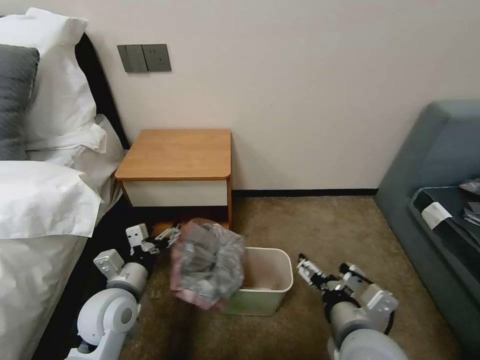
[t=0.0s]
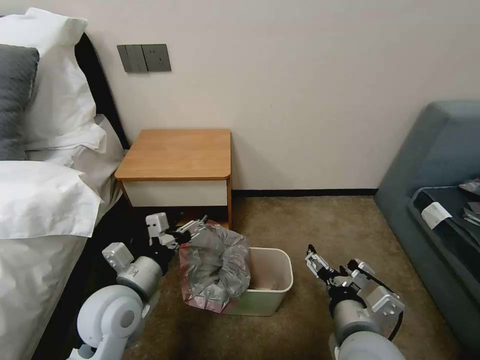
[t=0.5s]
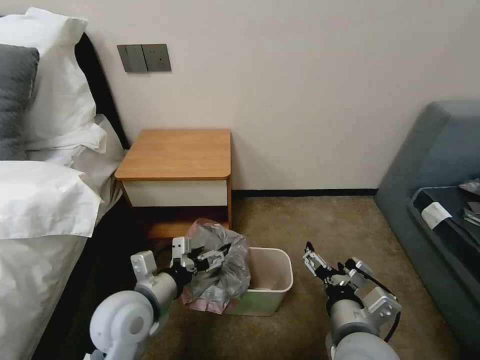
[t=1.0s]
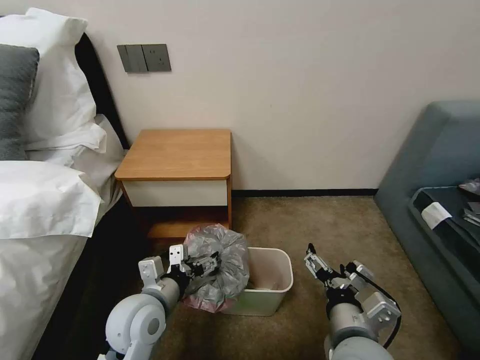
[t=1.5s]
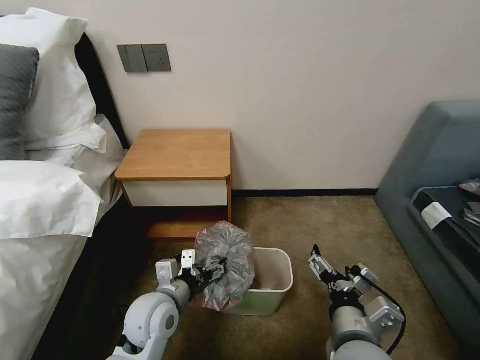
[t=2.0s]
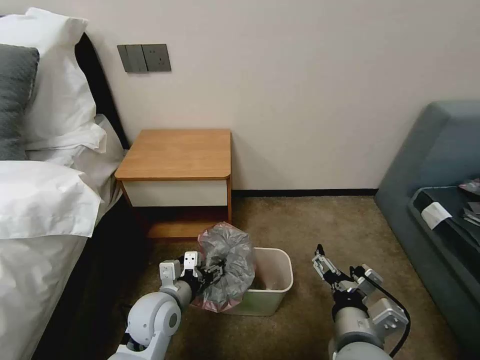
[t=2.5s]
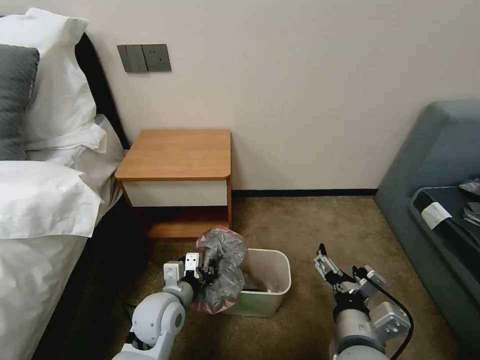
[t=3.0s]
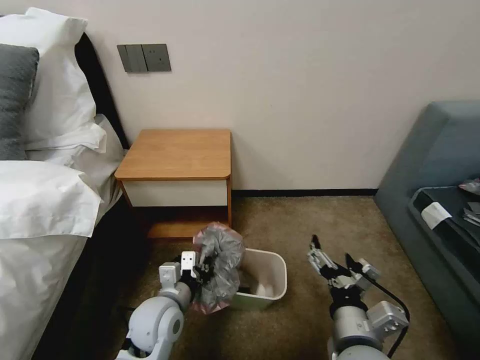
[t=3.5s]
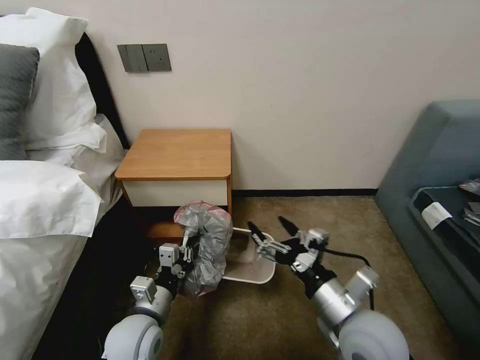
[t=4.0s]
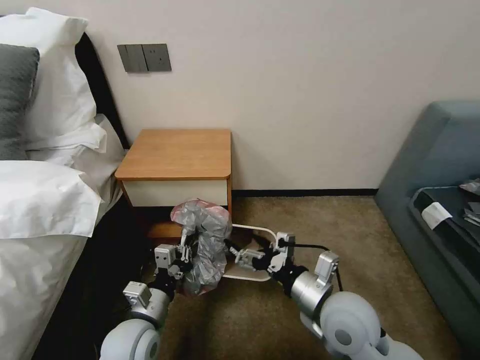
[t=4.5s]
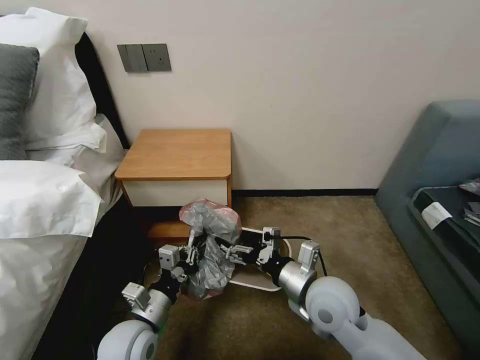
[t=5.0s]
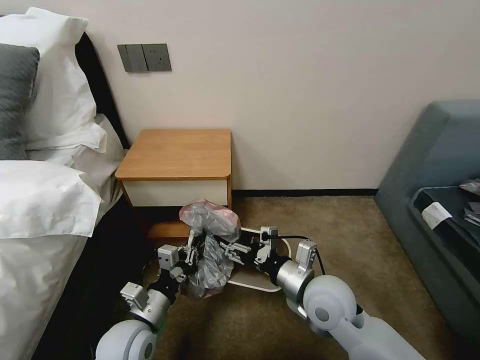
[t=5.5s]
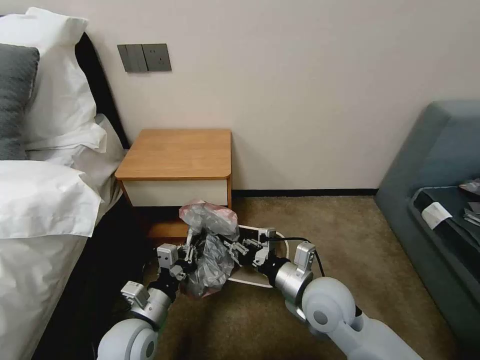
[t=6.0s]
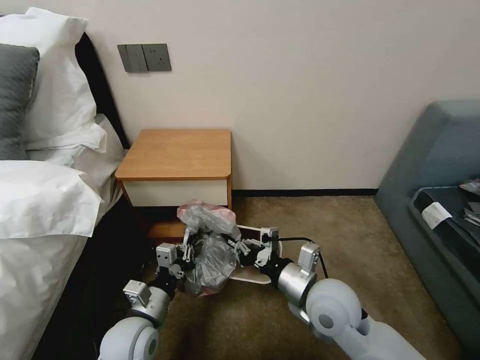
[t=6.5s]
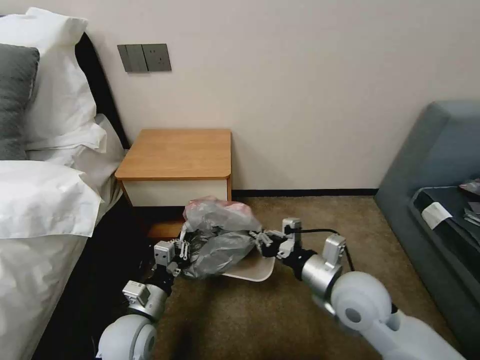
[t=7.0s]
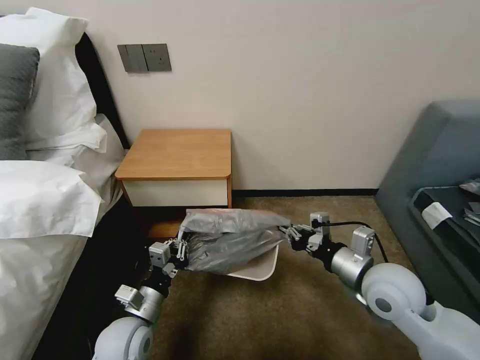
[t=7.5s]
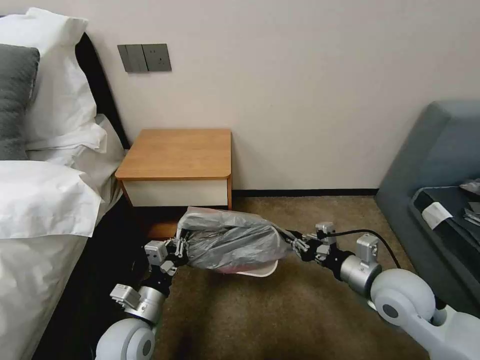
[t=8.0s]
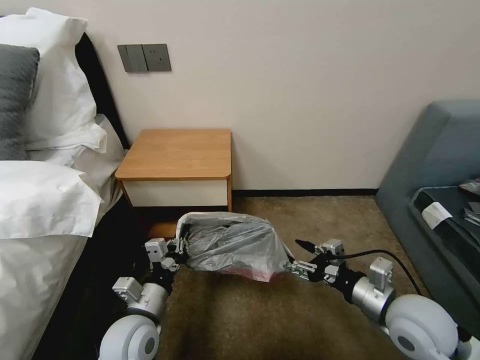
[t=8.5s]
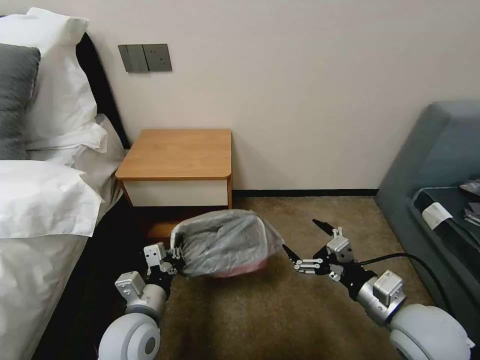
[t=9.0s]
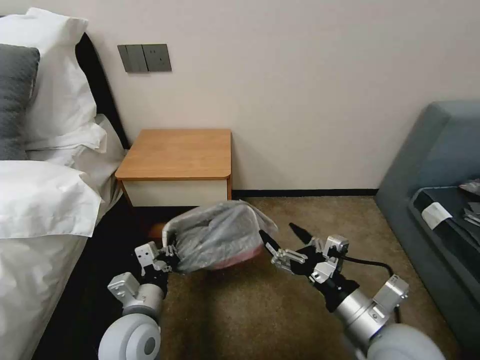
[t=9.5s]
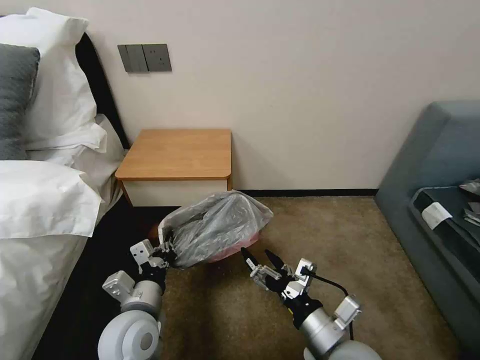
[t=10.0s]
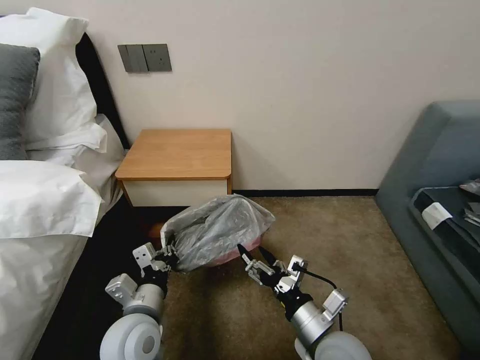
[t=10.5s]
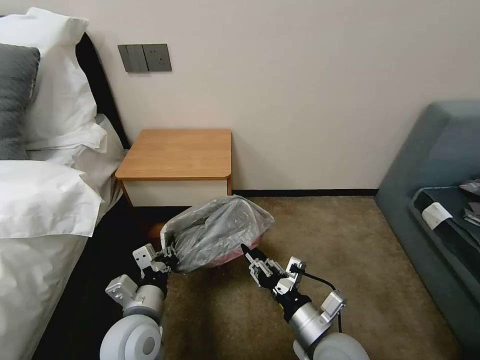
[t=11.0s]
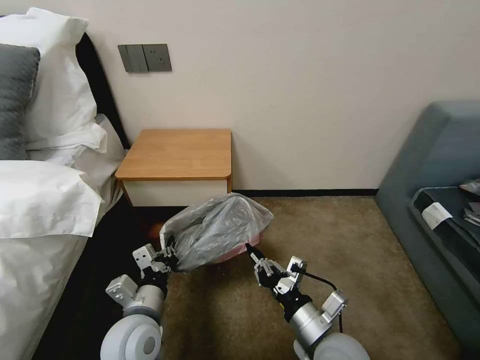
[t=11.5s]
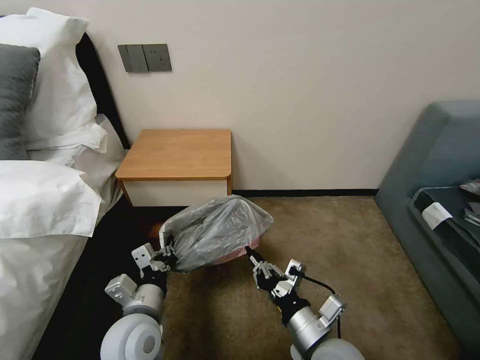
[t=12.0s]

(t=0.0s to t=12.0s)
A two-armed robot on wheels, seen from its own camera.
Task of the whole recording: Pick up the garbage bag from the table and place it over the trash can.
t=0.0s - t=2.0s: The left gripper goes about 5 cm to the right.
t=2.0s - t=4.0s: The left gripper changes place by some 5 cm, and closes its fingers.
t=4.0s - t=6.0s: The right gripper shifts some 5 cm forward, and closes up.
t=6.0s - t=8.0s: The right gripper goes about 15 cm to the right.
t=8.0s - t=10.0s: The right gripper shifts some 15 cm to the left and backward, and opens, while the left gripper shifts by about 5 cm.
t=10.0s - t=12.0s: The right gripper closes.

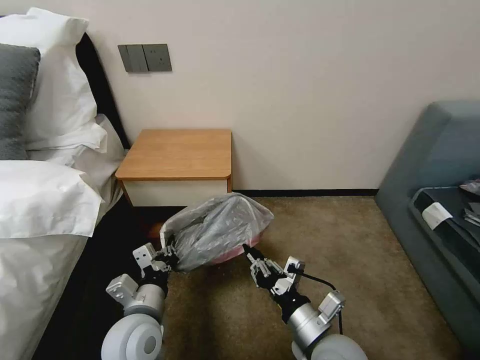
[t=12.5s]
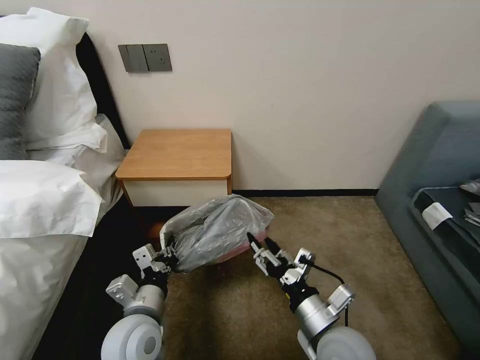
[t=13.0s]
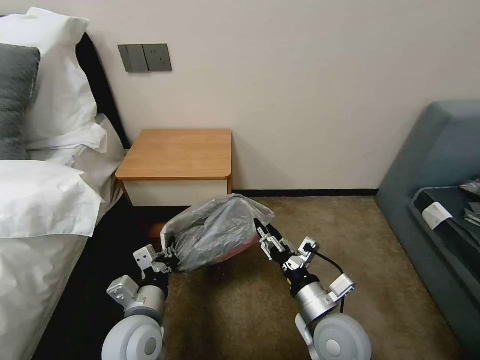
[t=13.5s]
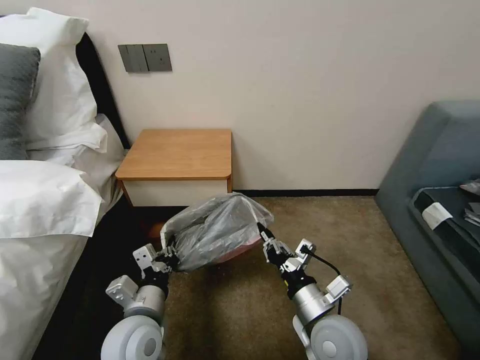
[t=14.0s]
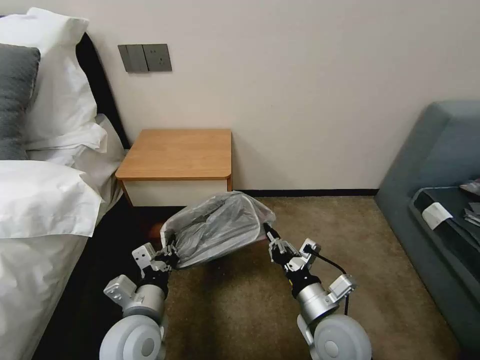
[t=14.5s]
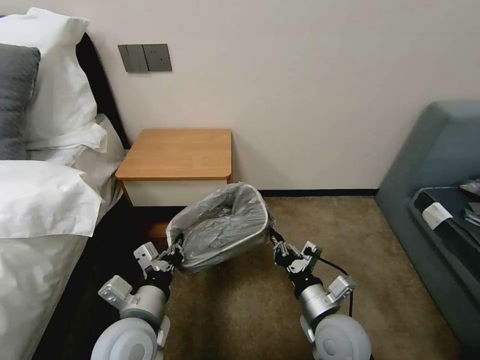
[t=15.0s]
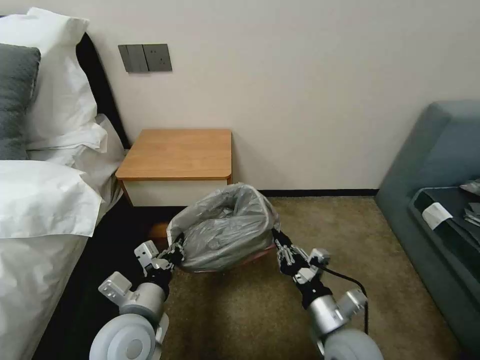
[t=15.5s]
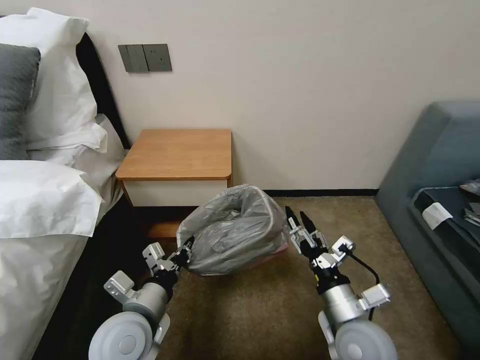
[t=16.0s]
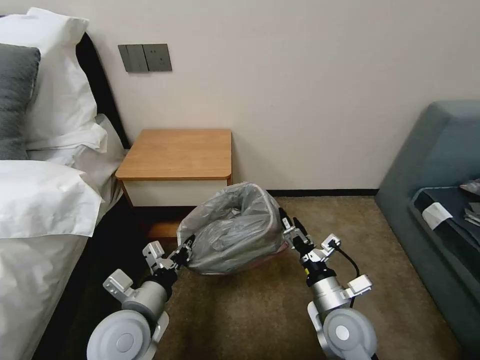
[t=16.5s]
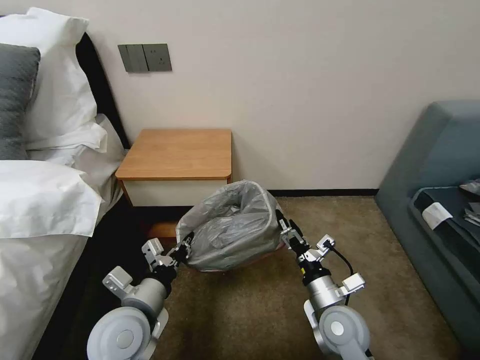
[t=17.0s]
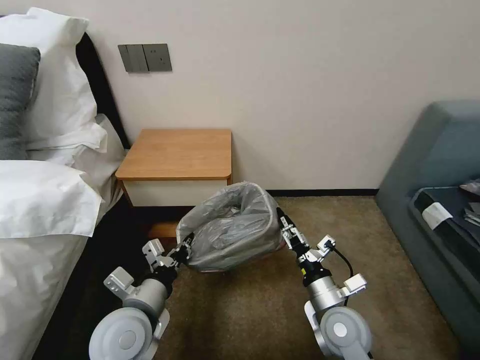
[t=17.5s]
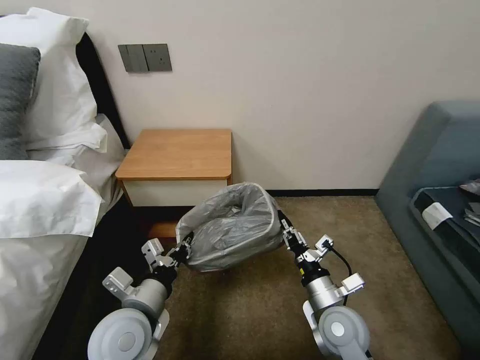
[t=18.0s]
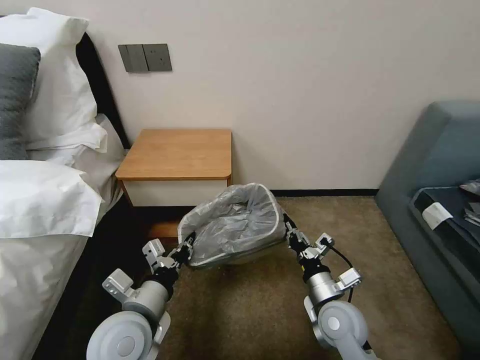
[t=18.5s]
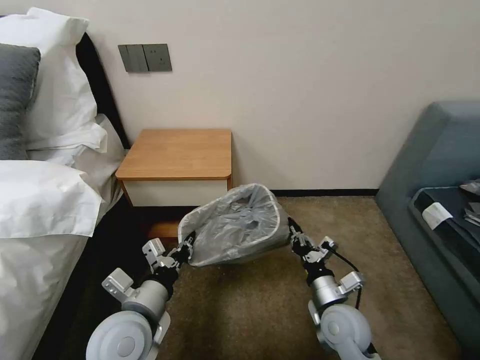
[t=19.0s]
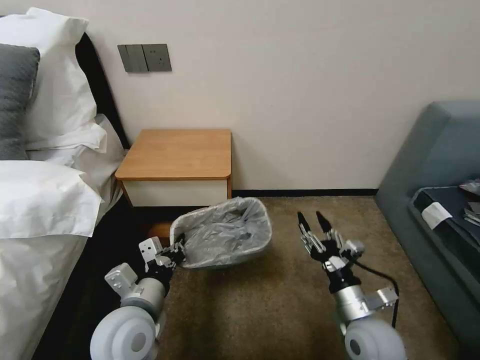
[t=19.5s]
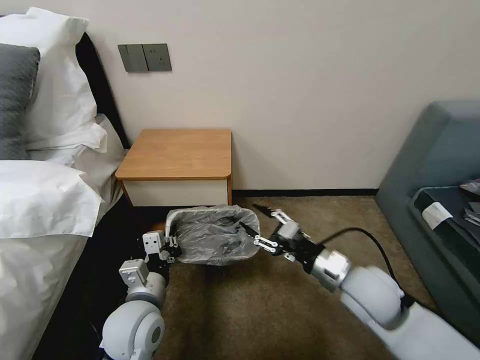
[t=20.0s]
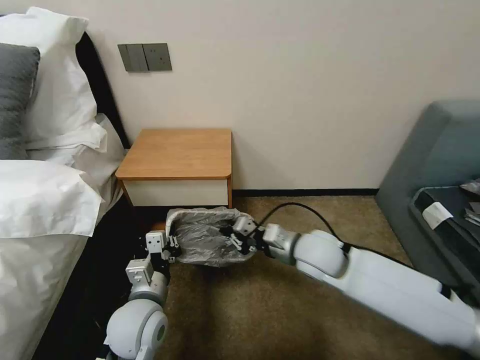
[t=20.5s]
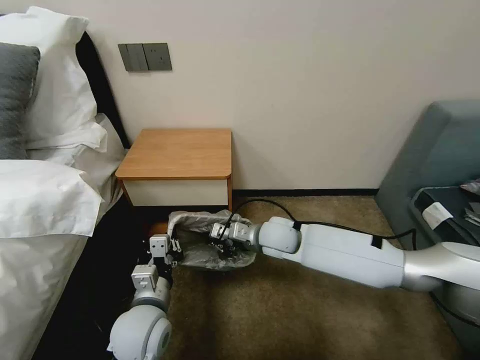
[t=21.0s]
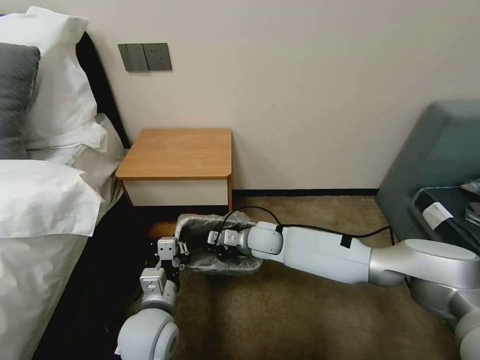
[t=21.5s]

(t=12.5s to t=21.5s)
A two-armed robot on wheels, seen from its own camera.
Task of the whole recording: Pick up the garbage bag from the table and place it over the trash can.
t=12.5s - t=14.5s: The right gripper opens, then closes once more.
t=14.5s - t=17.0s: The right gripper ends up roughly 5 cm from where it was, and opens up.
t=17.0s - t=19.5s: The right gripper moves roughly 5 cm, and closes its fingers.
t=19.5s - t=21.5s: The left gripper changes place by about 5 cm. Meanwhile the right gripper travels forward and to the left by some 30 cm, and closes its fingers.

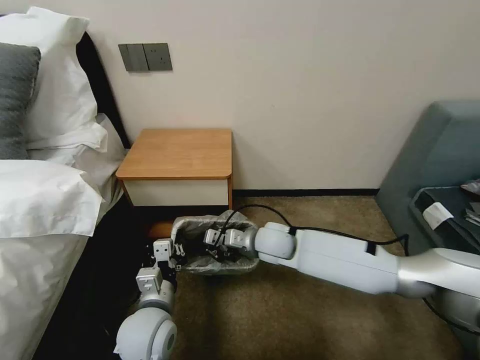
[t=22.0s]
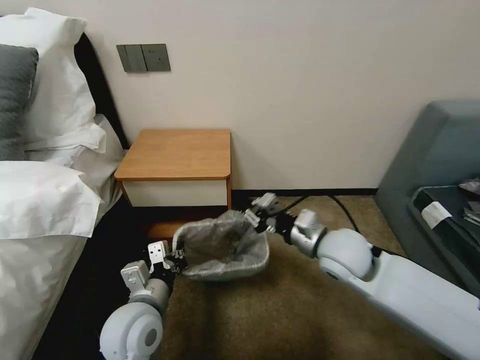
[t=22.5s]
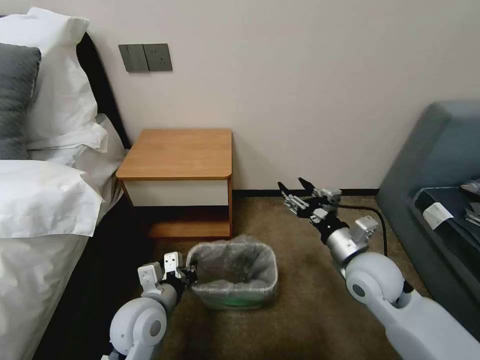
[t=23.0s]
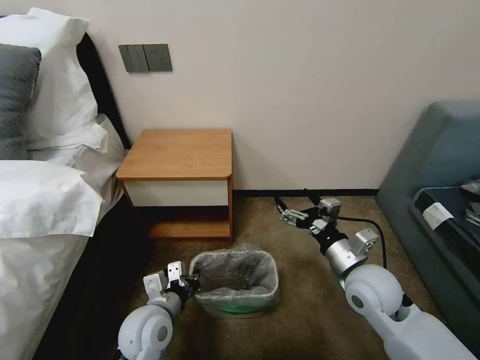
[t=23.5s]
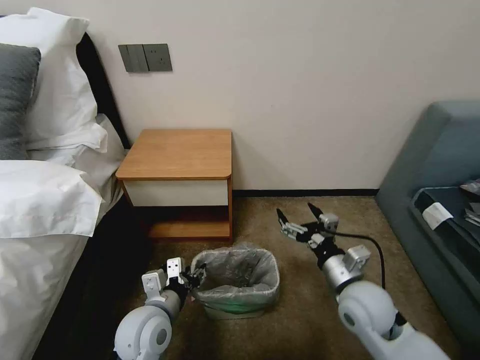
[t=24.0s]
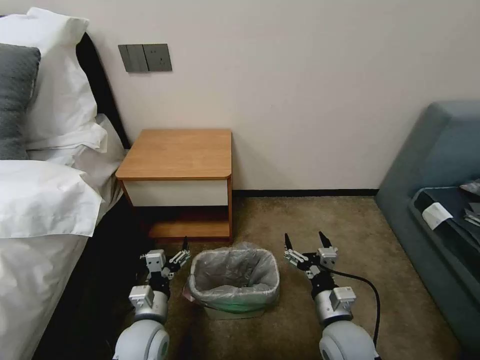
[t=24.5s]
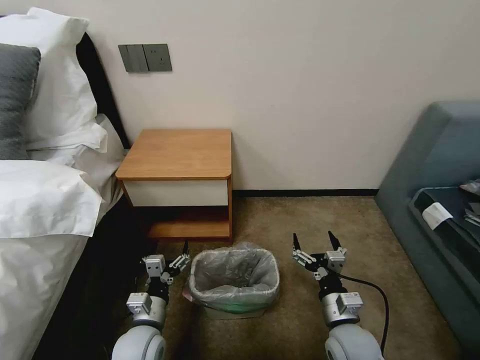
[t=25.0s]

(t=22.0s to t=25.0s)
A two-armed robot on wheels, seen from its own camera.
Task of the whole recording: Pick up the garbage bag from the table and place it over the trash can.
t=22.0s - t=23.5s: The right gripper is displaced to the right and backward by about 20 cm, and opens up.
t=23.5s - t=25.0s: The right gripper shifts roughly 15 cm downward and backward; the left gripper heads downward, covering some 5 cm, and opens up.
